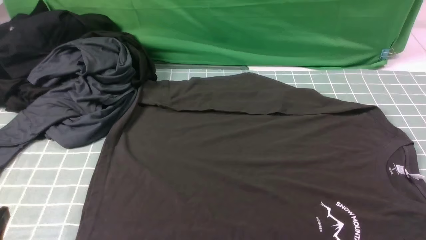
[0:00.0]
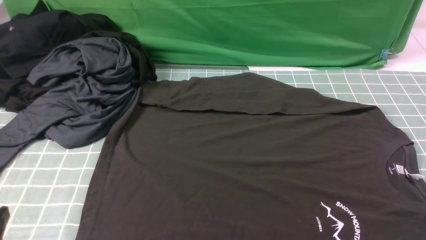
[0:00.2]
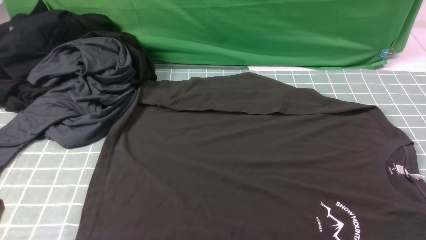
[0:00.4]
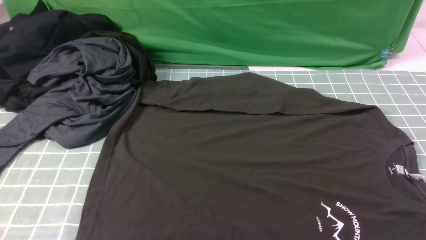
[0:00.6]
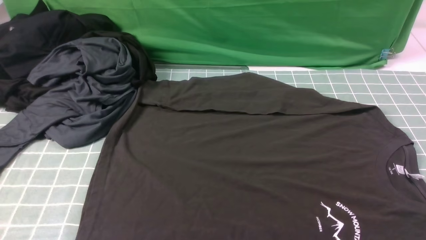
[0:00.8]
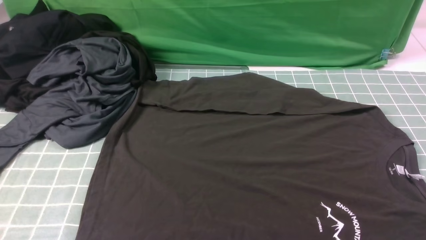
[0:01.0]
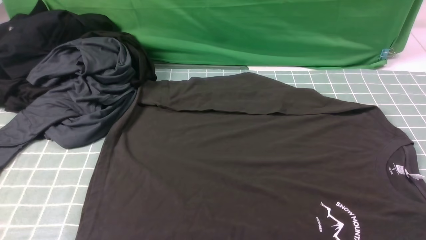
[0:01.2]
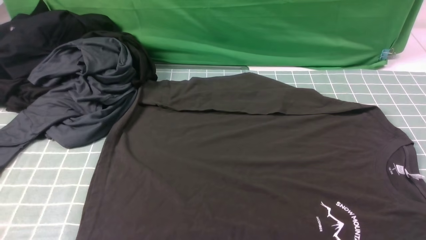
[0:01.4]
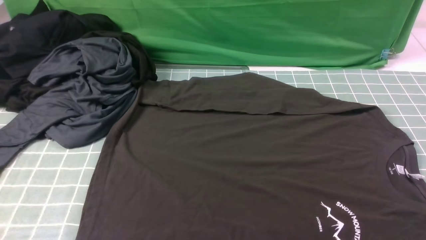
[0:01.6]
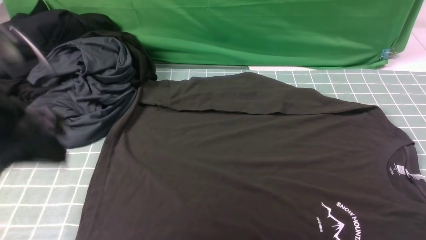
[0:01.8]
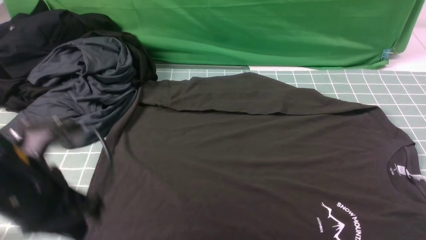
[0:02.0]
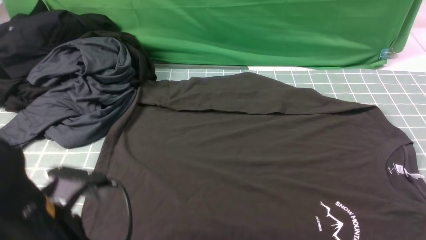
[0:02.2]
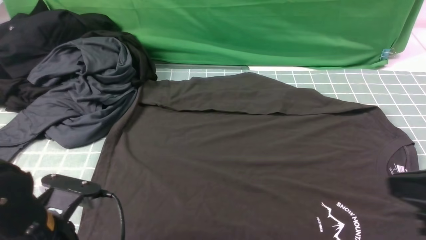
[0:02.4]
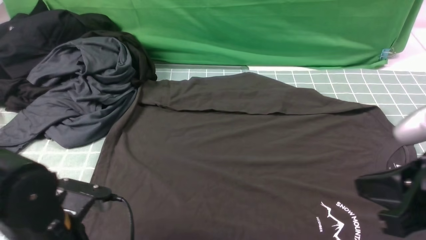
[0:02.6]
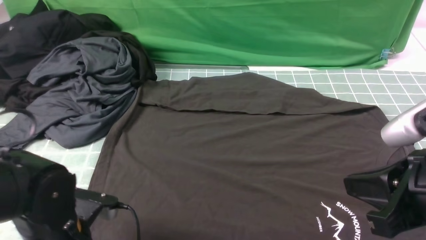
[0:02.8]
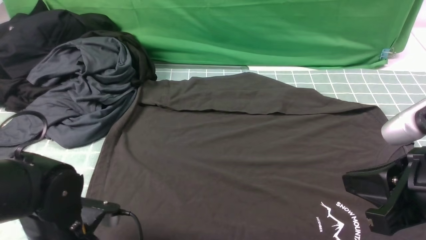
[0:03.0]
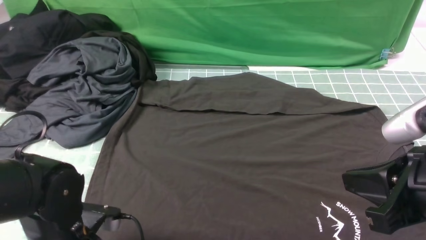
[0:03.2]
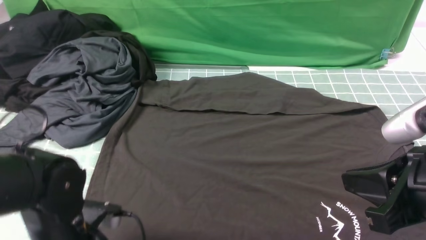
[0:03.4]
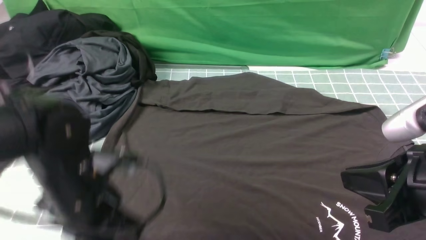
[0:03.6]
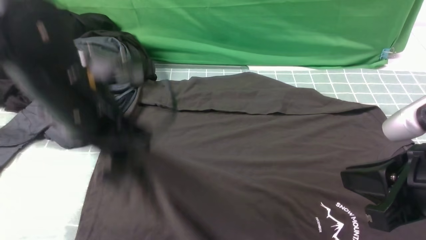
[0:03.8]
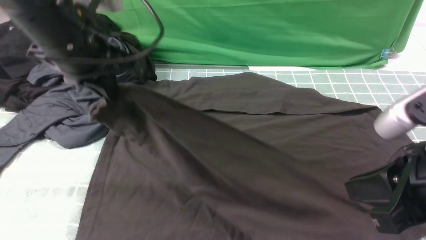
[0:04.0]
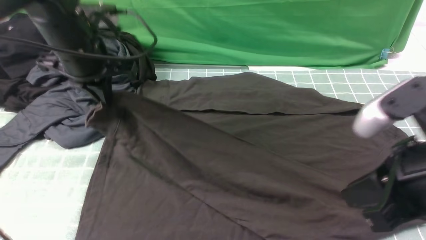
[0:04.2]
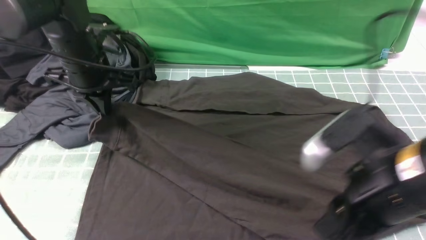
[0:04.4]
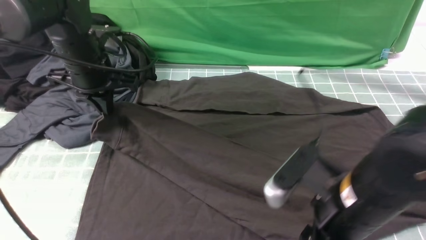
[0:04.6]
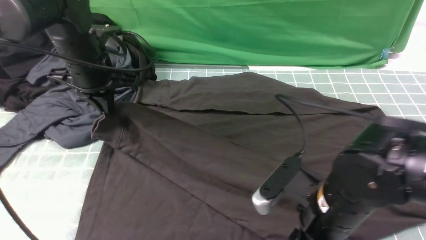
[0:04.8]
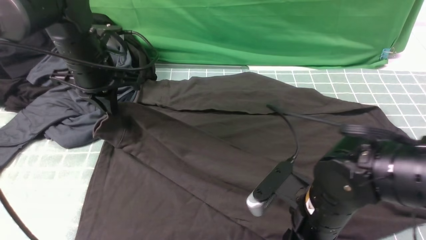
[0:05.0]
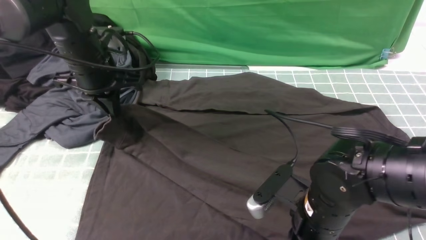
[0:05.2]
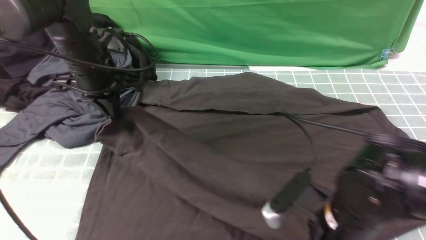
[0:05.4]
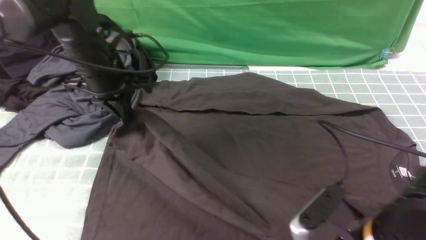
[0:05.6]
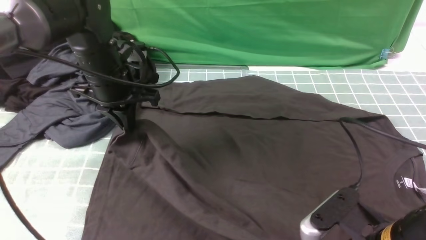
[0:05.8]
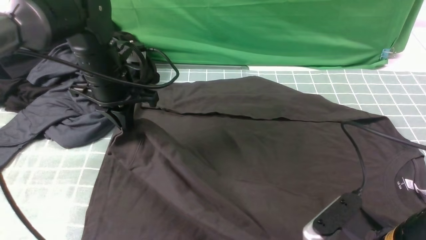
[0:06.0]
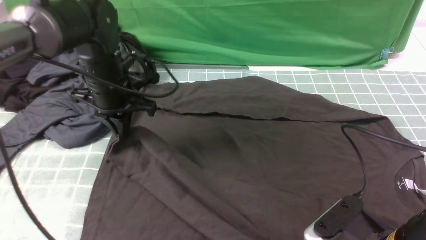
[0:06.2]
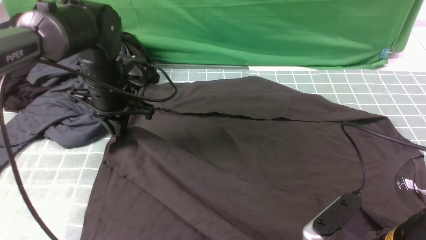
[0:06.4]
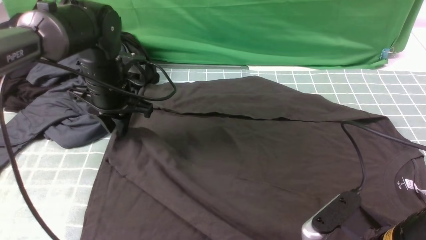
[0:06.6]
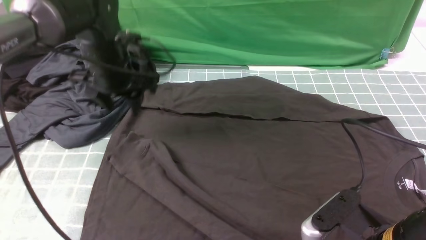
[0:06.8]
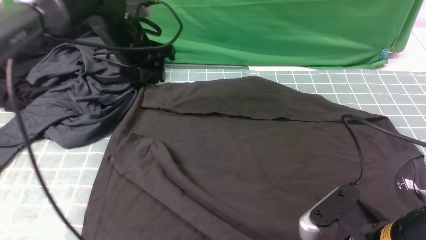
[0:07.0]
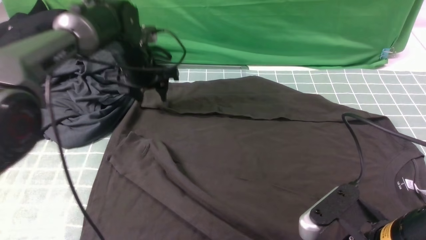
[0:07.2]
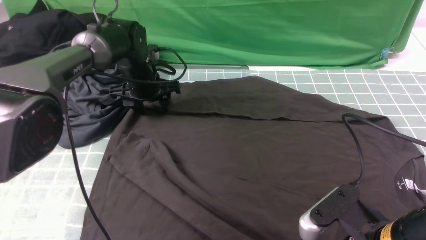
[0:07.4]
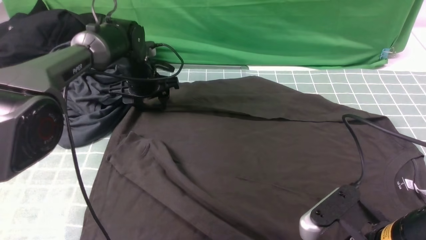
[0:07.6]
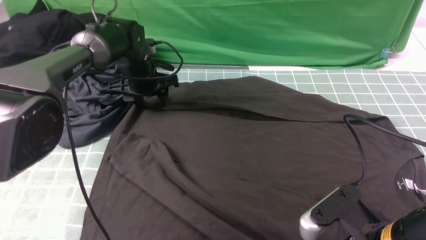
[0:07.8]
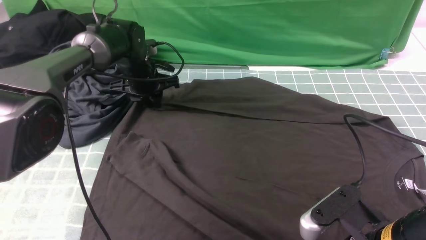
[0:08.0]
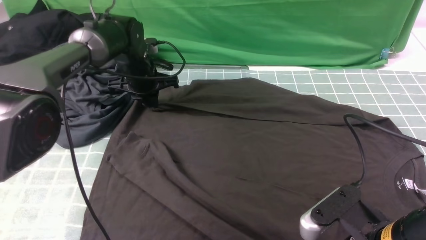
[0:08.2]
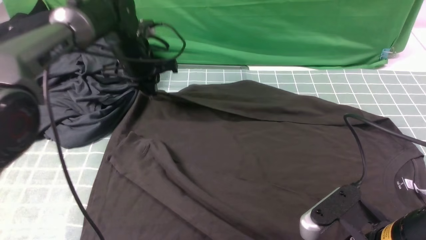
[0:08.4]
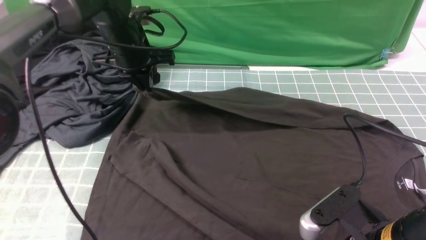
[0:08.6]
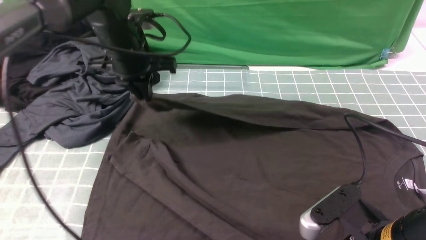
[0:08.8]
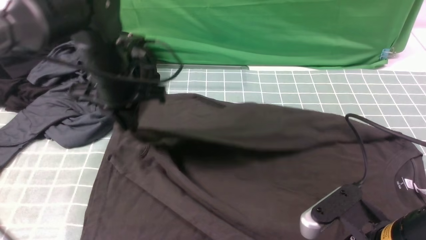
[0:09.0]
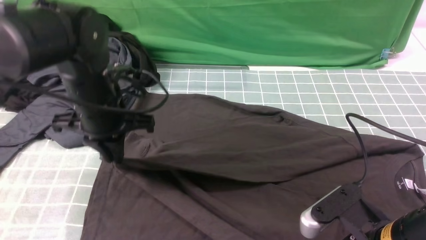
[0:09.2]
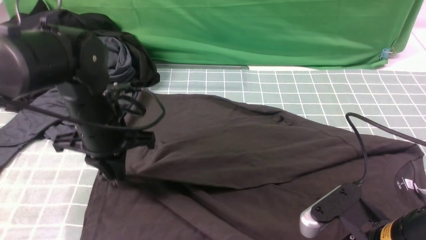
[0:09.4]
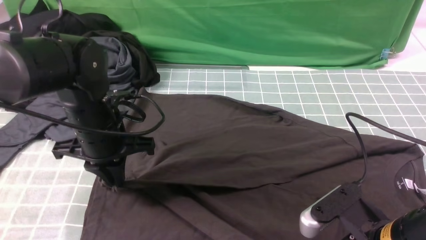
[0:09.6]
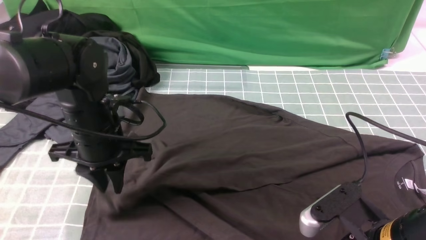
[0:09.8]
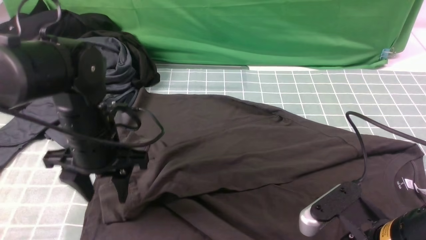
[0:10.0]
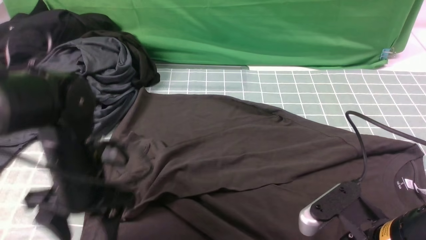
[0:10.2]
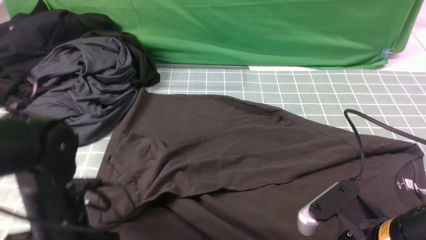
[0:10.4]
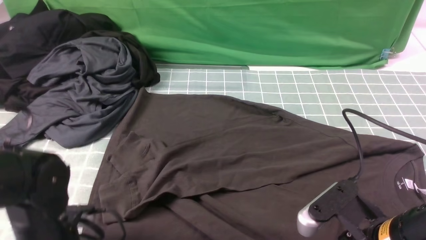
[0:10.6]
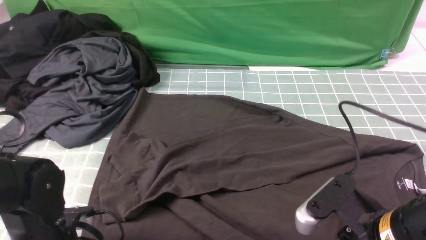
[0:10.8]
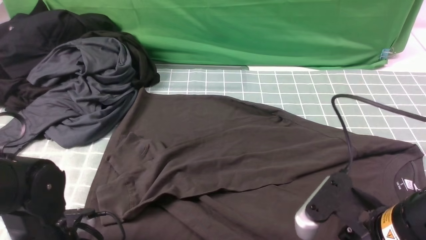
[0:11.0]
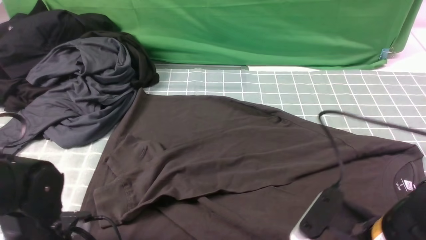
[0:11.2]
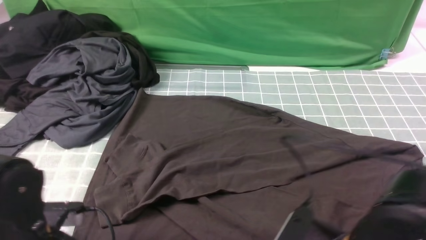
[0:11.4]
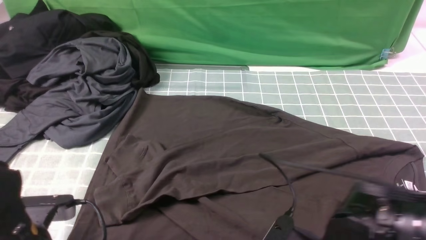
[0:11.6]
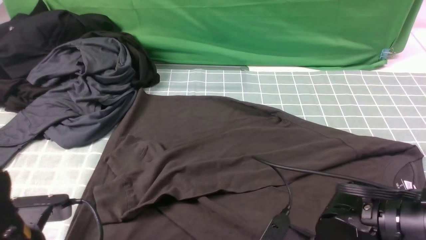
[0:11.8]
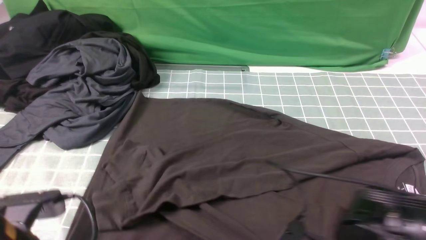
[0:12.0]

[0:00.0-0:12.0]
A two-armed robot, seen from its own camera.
Step, 0:00.0 to 0:03.2: use the left arm to clamp the cuff closest to it.
Step, 0:03.4 to 0:06.6: use the left arm to drag and place the cuff at the centered position on the left edge of the fabric.
Step, 0:06.8 to 0:08.2: use the left arm to clamp the cuff farthest from it.
Step, 0:08.4 to 0:10.0: use the left arm to drag and drop the cuff onto the cuff closest to the left arm.
Step, 0:10.2 to 0:12.0: use both arms simultaneously to clamp the lower edge of the clothing fabric.
0:01.6 to 0:03.0: The right gripper travels to the left, upward and forward by some 15 cm, and closes; the left gripper travels downward by about 25 cm, and opens.
0:03.0 to 0:04.4: The right gripper is displaced to the left by about 5 cm, and opens up; the left gripper is displaced forward and upward by approximately 25 cm, and closes.
0:04.4 to 0:06.0: The right gripper is displaced downward by about 5 cm.
0:06.0 to 0:07.6: The left gripper moves forward and downward, approximately 15 cm, and opens up. The right gripper opens its fingers.
0:07.6 to 0:09.0: The left gripper goes some 15 cm backward and upward, and closes its fingers.
0:09.0 to 0:10.4: The left gripper is displaced backward and downward by roughly 20 cm, and opens its fingers.
0:10.4 to 0:12.0: The left gripper shifts some 10 cm backward and upward, and closes up; the right gripper closes its fingers.

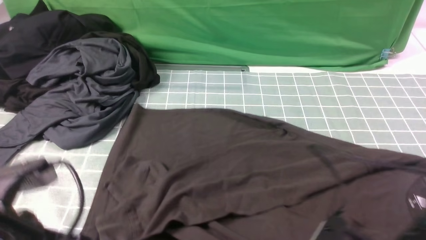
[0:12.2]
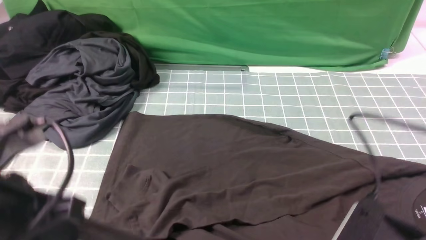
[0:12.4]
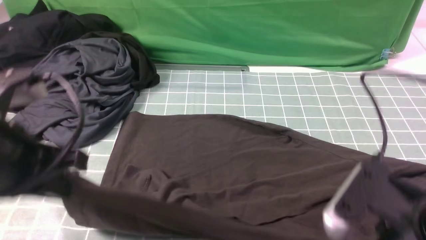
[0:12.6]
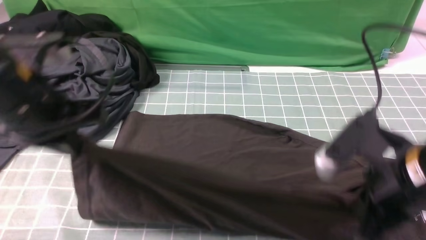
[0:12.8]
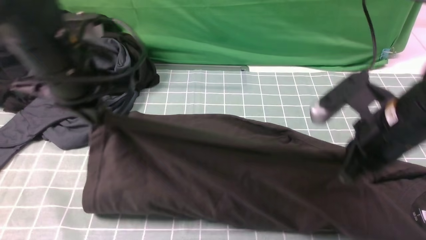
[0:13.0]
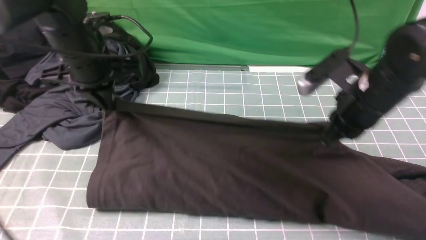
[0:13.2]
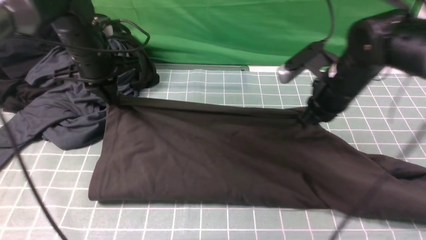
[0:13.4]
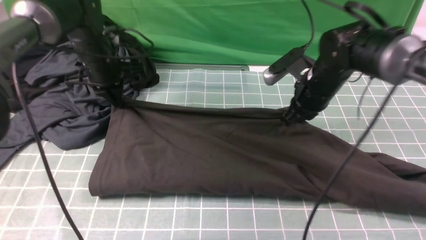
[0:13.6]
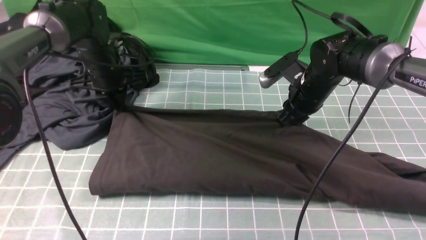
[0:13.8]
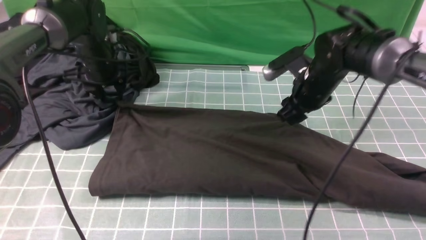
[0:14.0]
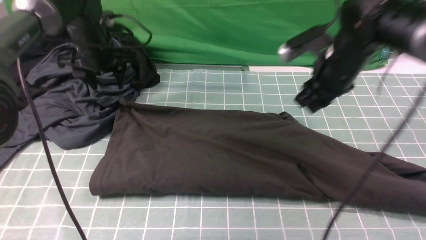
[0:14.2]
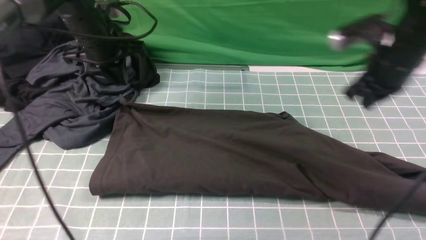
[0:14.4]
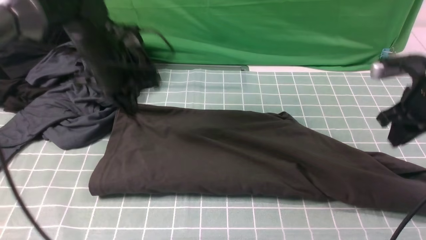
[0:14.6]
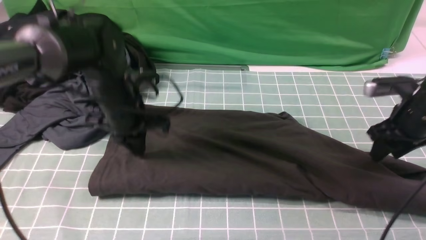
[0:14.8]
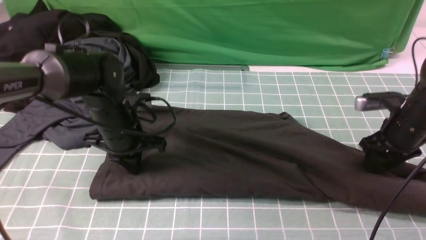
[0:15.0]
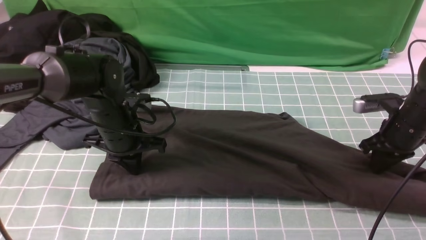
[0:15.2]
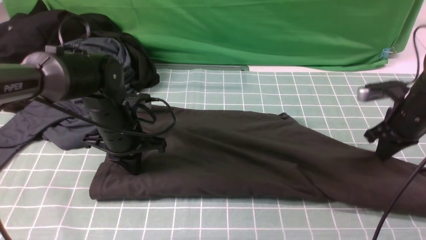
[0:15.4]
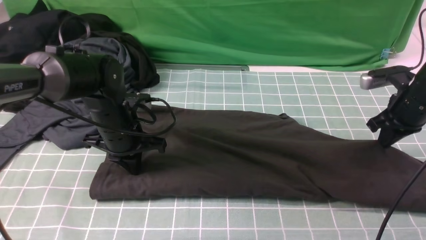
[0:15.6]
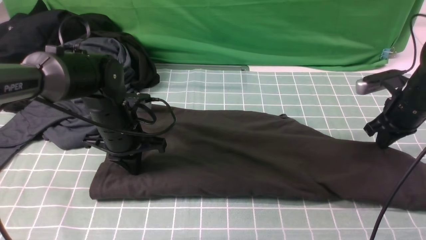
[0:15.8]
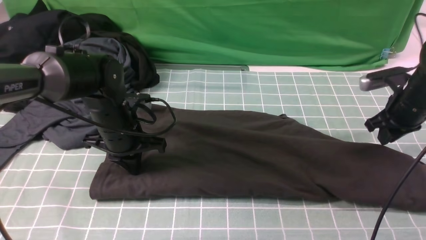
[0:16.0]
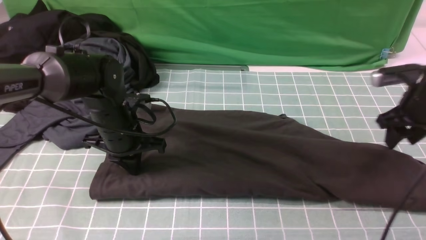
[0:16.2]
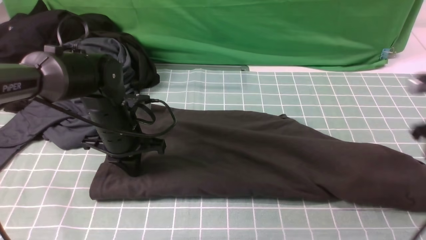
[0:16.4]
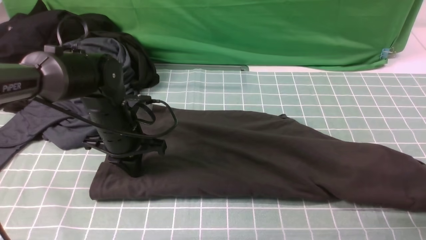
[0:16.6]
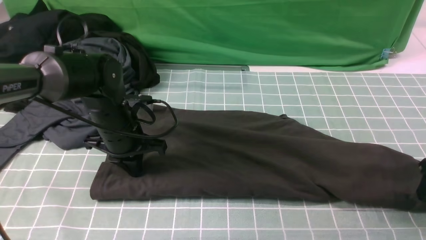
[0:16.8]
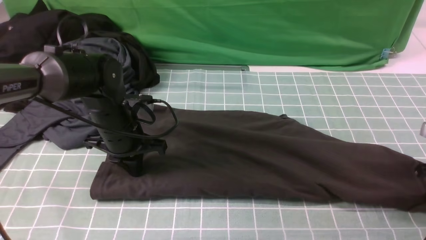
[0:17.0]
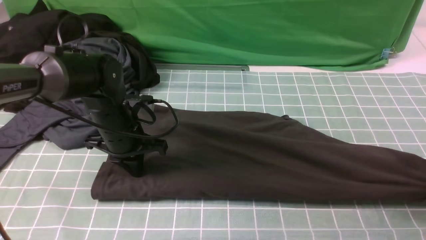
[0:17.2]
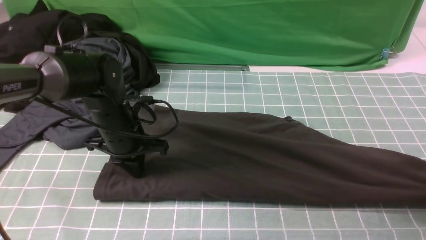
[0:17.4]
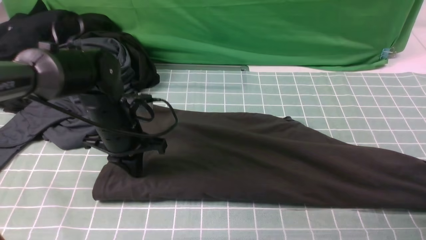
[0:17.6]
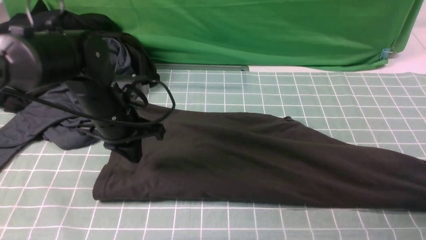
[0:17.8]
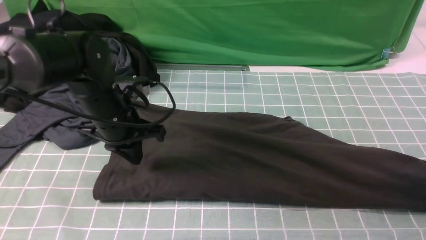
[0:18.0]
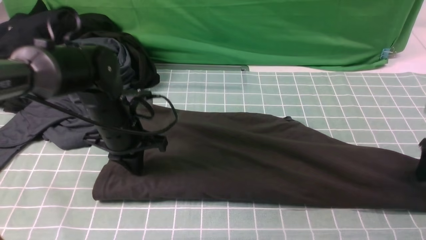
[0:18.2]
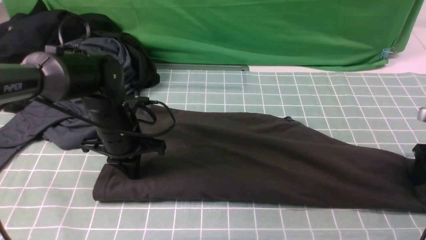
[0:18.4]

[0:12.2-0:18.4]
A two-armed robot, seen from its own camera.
Step, 0:12.2 to 0:14.2: use both arms to drag the lower edge of the fabric forward and fold it over the upper edge.
0:12.2 to 0:13.8: Both grippers travel together forward, some 35 cm. The right gripper opens up.
0:13.8 to 0:15.4: The left gripper goes roughly 15 cm backward and to the right; the right gripper shifts about 15 cm to the right, and closes up.
0:15.4 to 0:16.8: The right gripper is displaced backward and to the right by some 10 cm, and opens up.
0:16.8 to 0:18.4: The right gripper travels forward by roughly 5 cm, and closes, then opens again.
